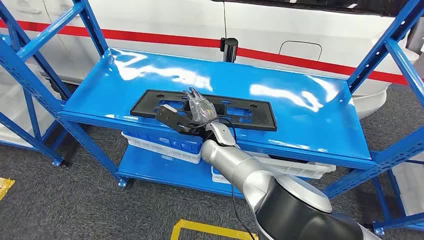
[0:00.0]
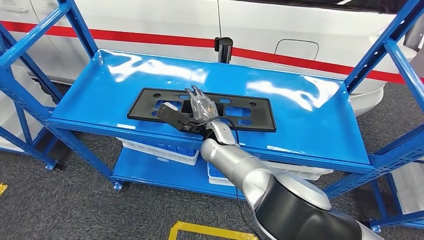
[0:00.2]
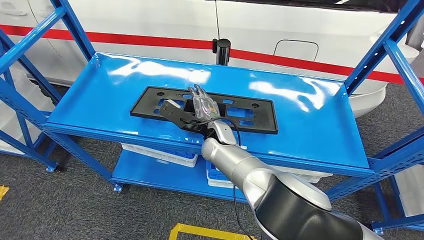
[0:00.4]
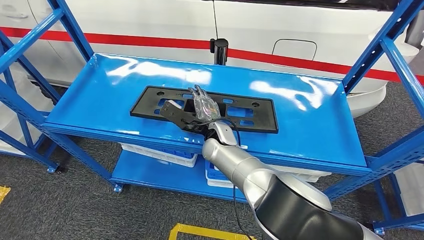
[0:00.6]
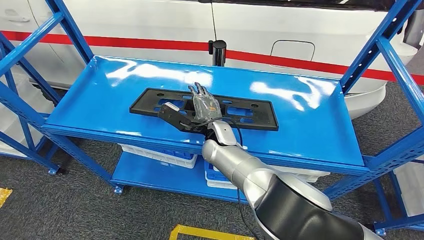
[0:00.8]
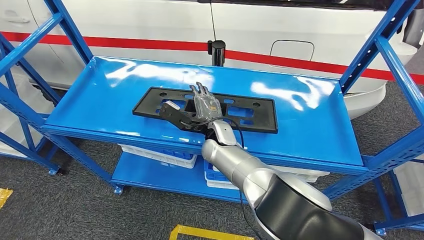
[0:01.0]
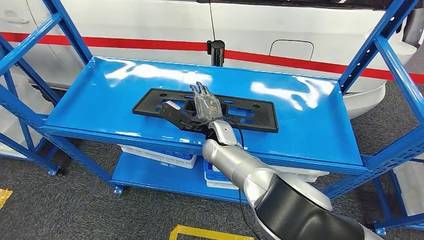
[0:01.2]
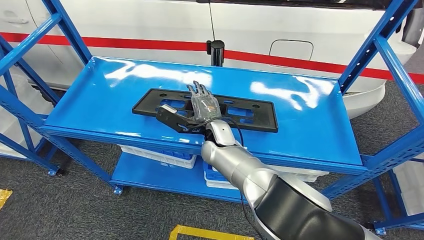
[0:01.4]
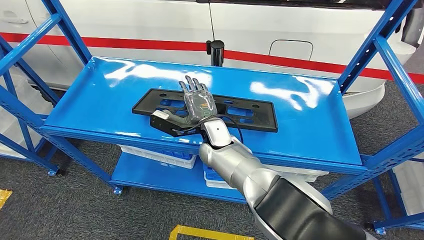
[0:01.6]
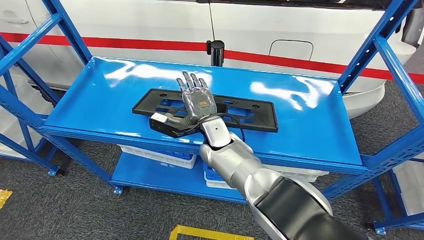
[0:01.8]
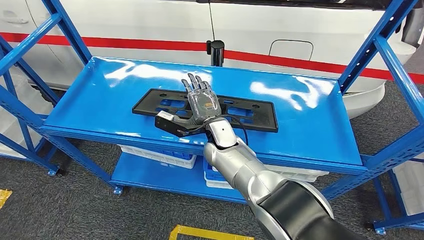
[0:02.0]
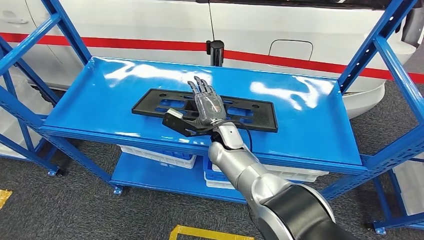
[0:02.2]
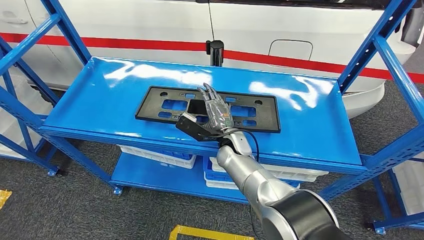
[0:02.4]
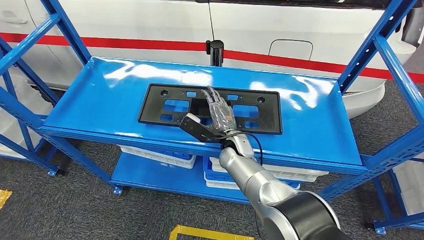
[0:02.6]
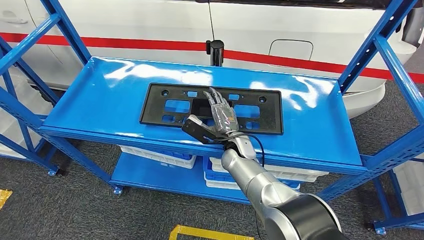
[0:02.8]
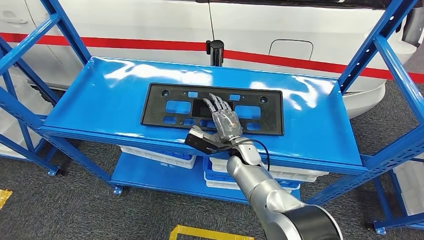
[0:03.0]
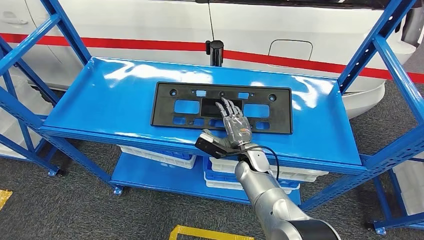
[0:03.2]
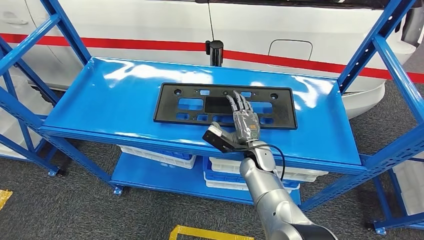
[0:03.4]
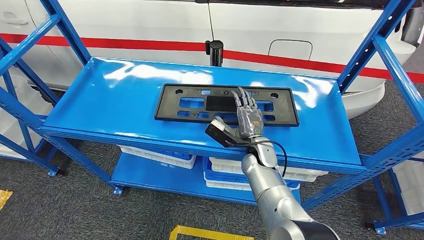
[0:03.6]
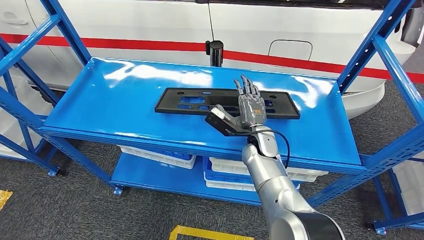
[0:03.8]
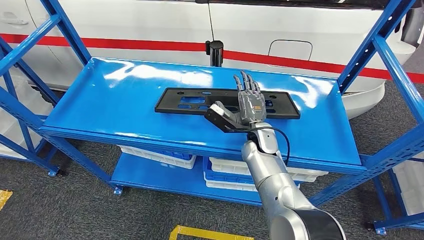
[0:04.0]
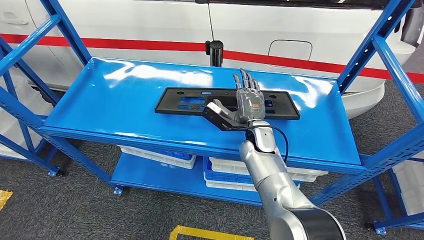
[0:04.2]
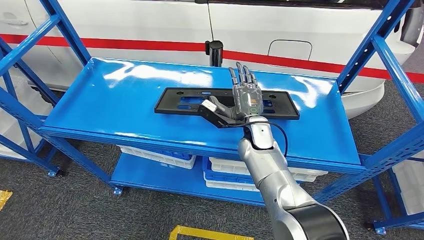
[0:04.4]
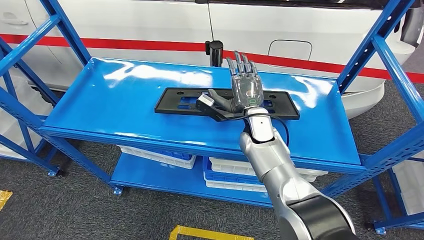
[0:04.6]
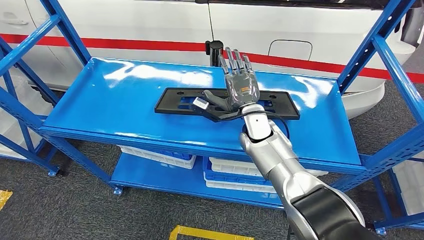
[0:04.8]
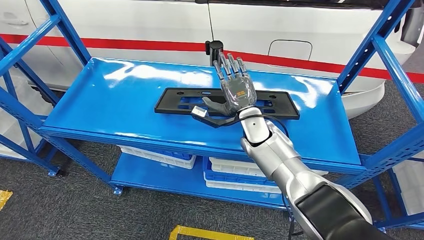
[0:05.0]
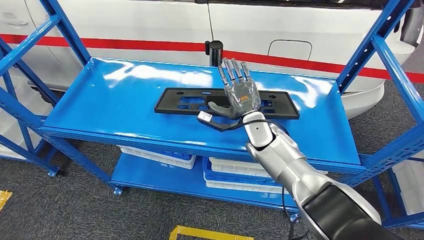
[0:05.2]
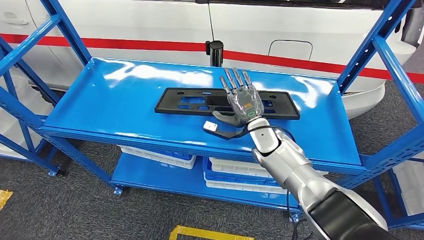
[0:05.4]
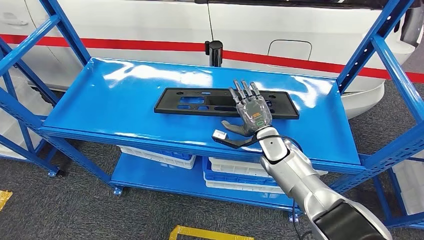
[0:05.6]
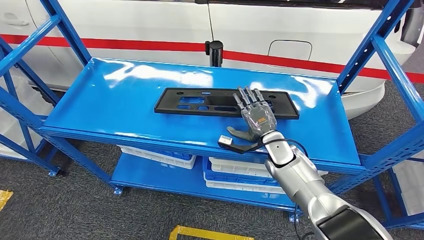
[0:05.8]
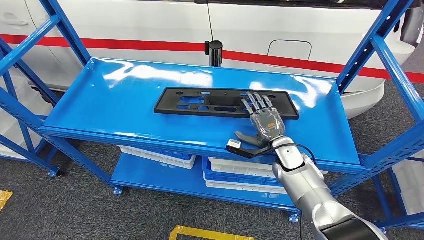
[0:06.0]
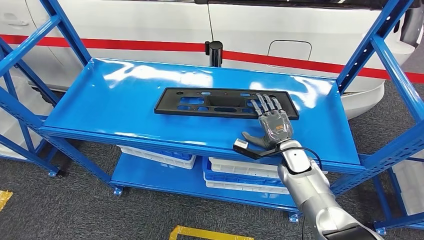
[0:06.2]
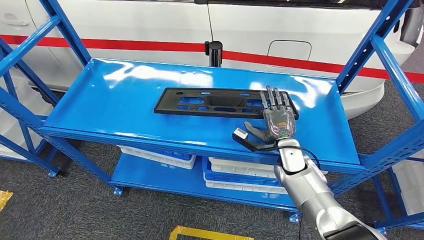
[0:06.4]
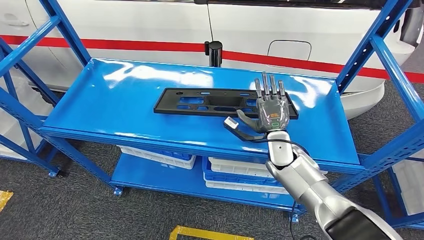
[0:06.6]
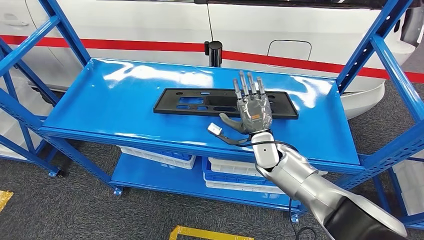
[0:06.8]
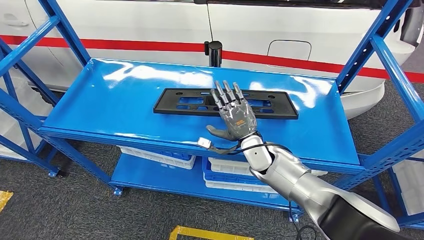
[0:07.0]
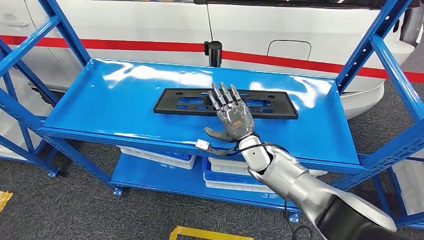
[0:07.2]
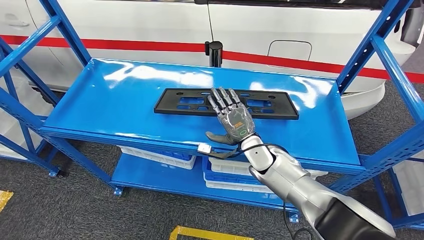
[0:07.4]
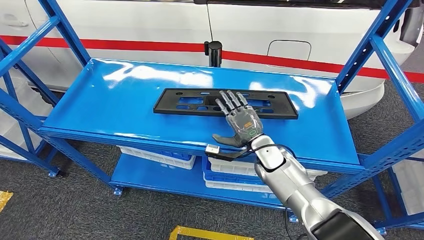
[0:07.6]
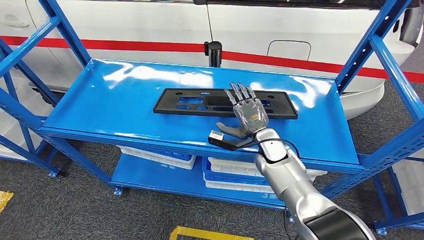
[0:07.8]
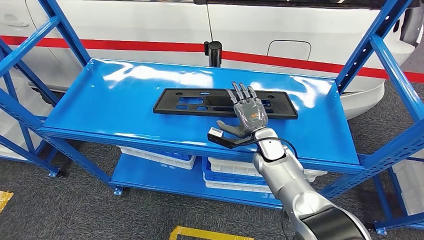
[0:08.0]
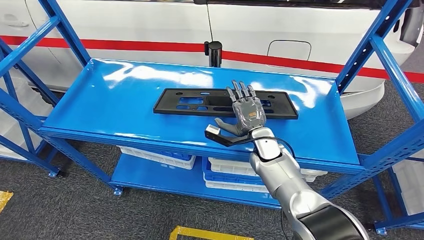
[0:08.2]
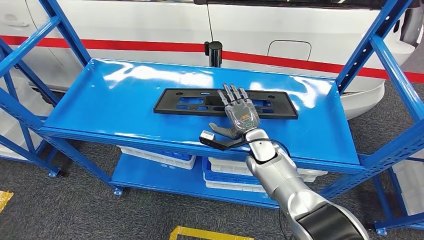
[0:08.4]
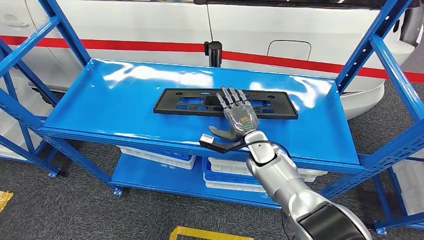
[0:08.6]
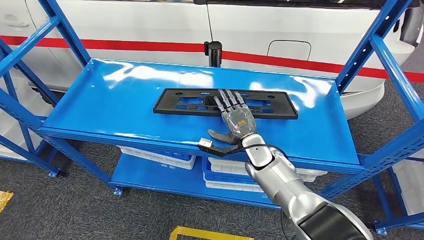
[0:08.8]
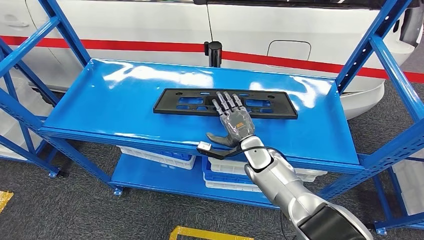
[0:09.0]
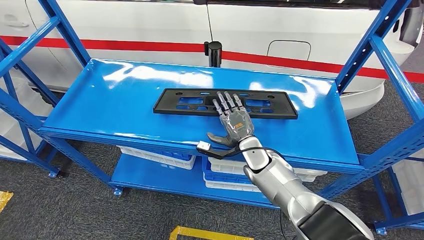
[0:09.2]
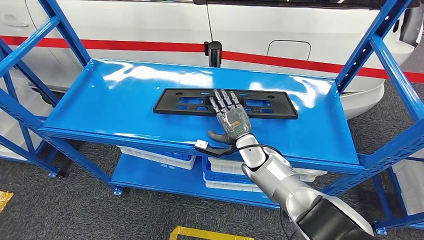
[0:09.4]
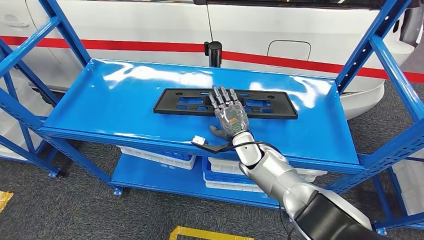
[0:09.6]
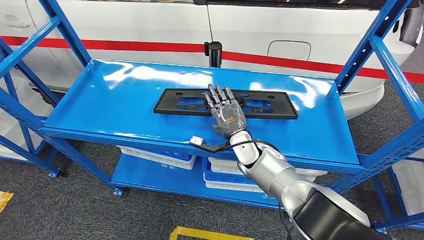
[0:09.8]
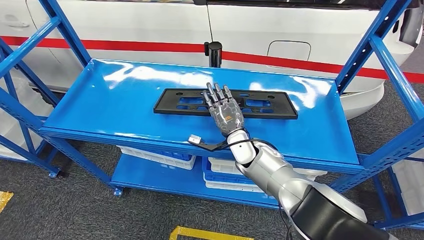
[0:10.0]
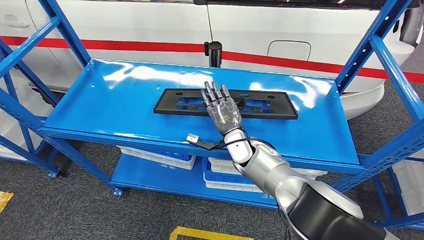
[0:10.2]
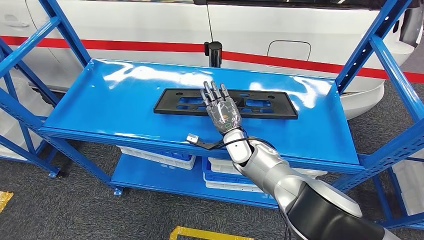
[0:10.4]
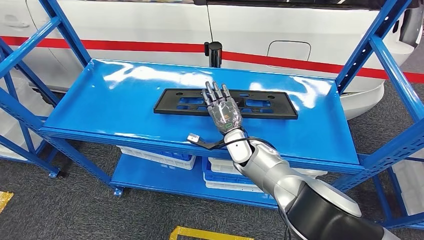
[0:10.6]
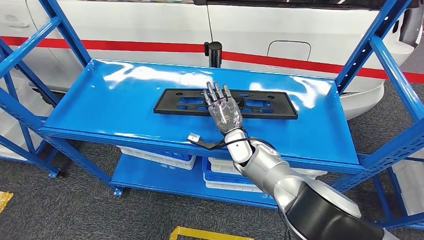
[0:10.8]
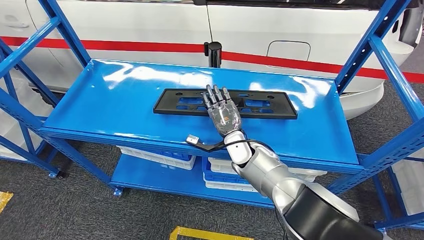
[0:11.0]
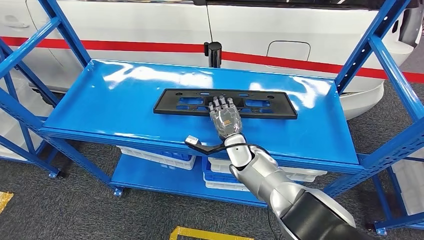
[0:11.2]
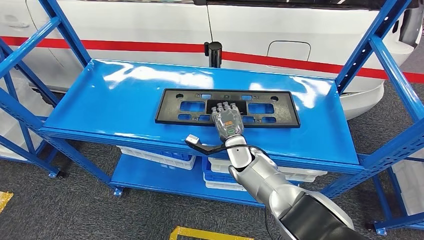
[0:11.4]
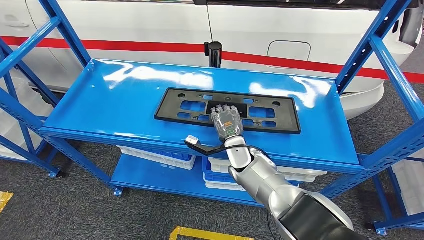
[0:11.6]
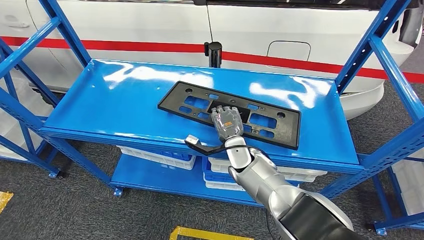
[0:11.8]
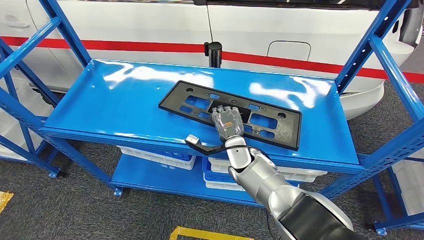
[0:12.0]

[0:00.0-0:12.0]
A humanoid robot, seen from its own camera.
0:01.6 to 0:03.0: The right hand goes some 10 cm to the right and downward.
0:03.0 to 0:04.4: The right hand goes approximately 5 cm upward.
0:04.4 to 0:06.0: The right hand goes some 10 cm to the right and downward.
0:06.0 to 0:07.6: The right hand travels to the left by some 5 cm.
0:07.6 to 0:09.0: The hands move only a little.
0:09.0 to 0:12.0: The hands move only a little.

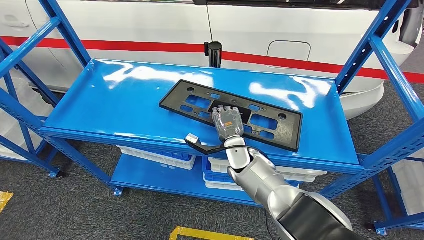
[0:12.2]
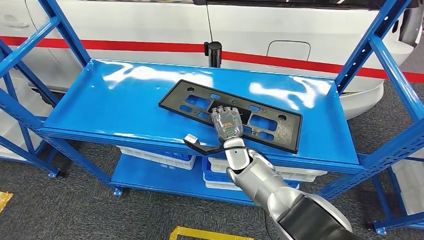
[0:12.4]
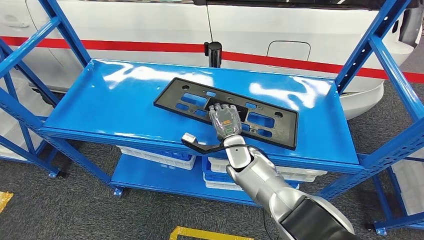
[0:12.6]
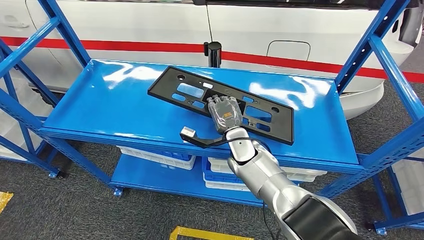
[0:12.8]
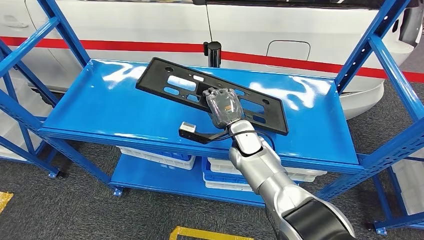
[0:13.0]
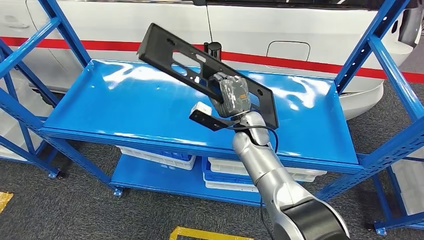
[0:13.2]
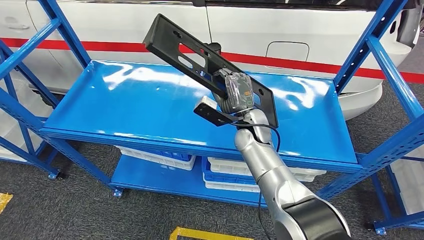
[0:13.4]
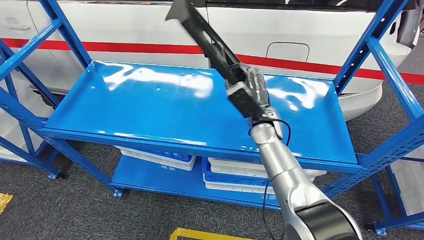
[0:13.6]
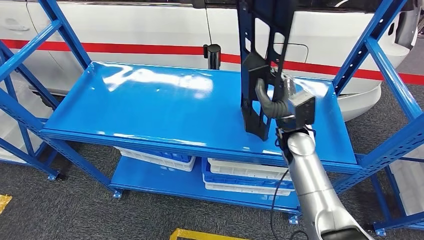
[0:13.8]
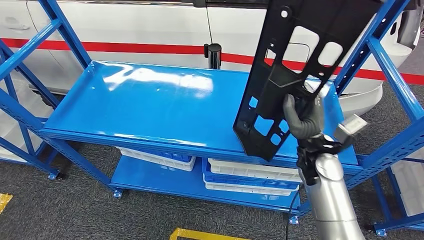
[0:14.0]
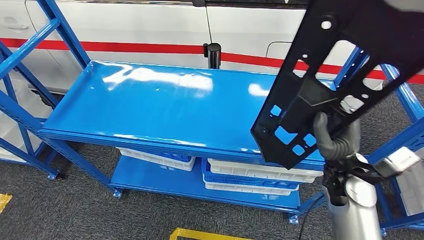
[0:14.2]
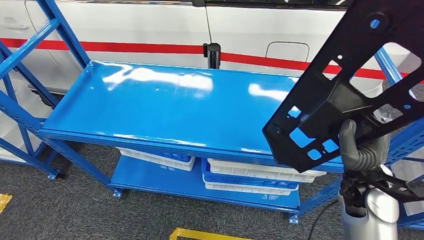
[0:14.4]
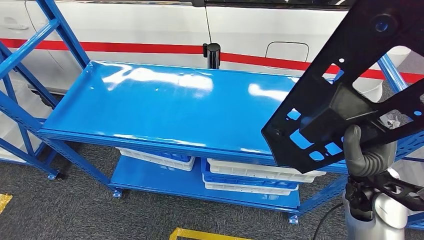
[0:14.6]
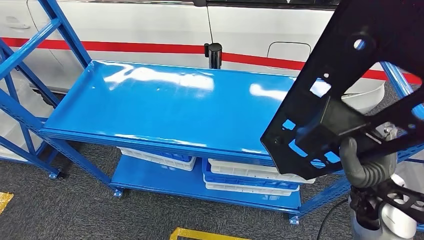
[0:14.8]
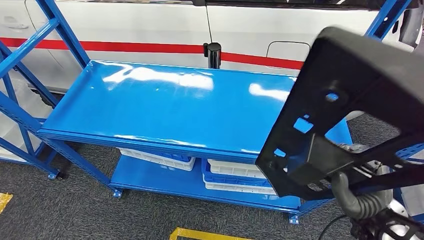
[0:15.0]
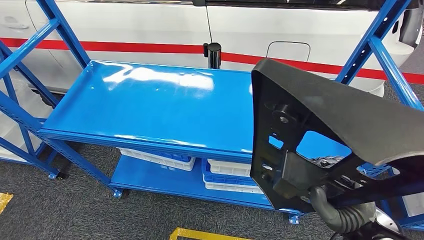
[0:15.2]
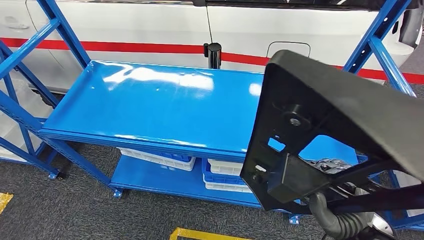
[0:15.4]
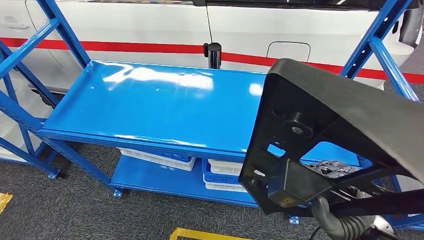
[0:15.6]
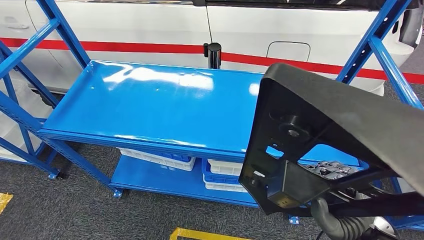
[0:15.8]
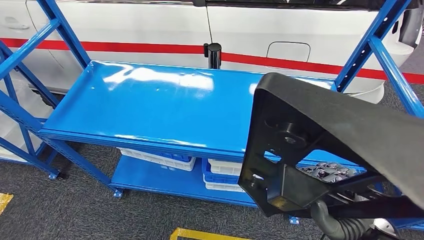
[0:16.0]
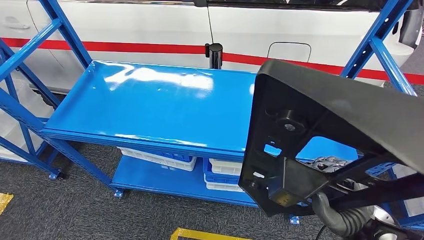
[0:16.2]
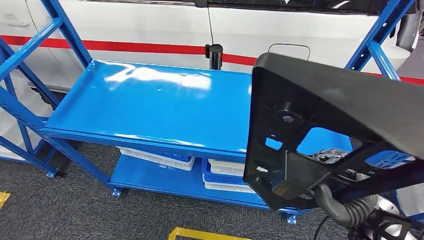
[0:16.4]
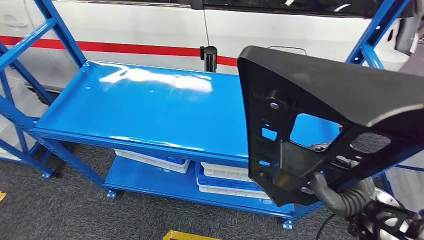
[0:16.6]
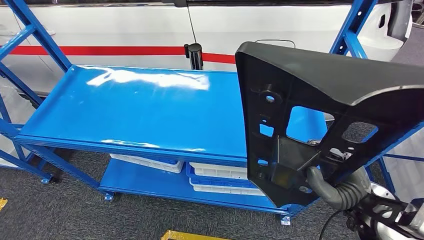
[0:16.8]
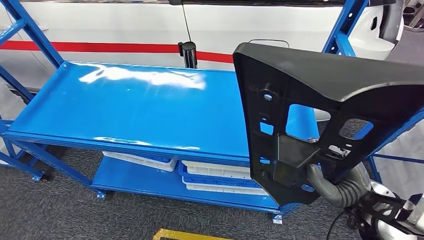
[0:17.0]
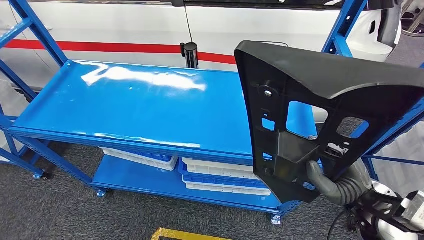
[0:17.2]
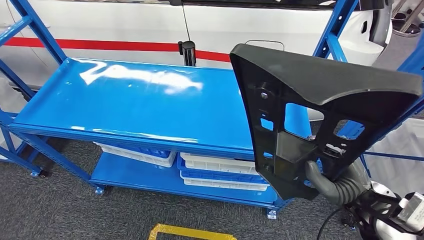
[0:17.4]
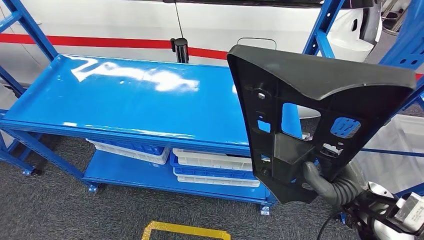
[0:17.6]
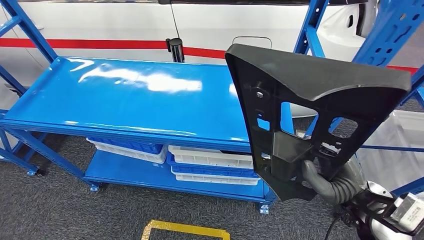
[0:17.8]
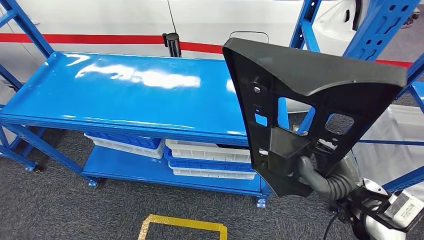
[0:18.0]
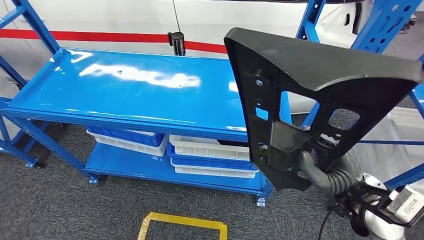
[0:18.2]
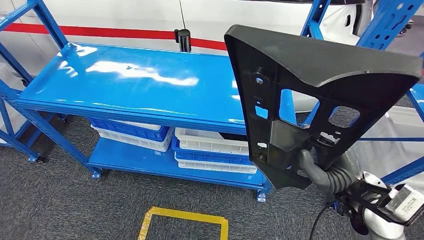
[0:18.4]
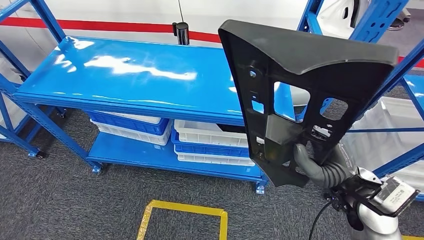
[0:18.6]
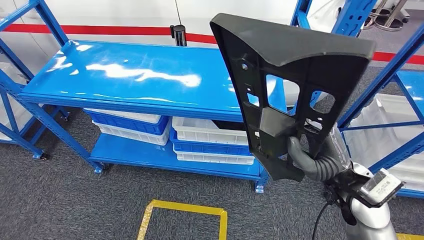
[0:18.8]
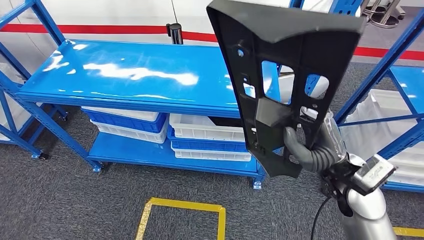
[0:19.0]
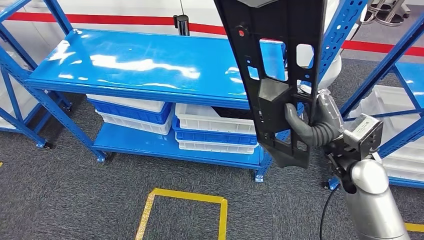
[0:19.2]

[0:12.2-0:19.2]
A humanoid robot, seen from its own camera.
Step, 0:12.2 to 0:15.8: Pick up the large material from the shelf.
